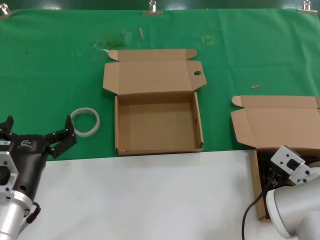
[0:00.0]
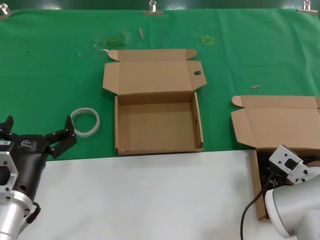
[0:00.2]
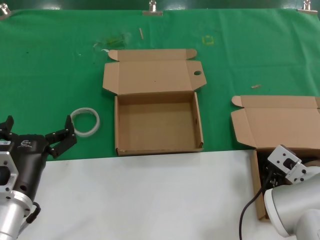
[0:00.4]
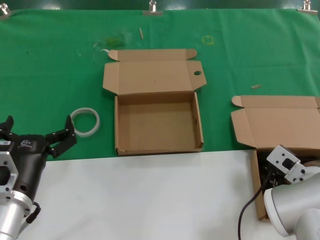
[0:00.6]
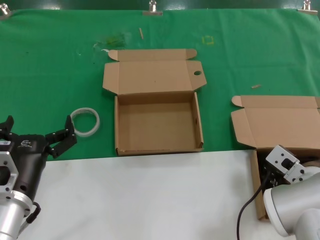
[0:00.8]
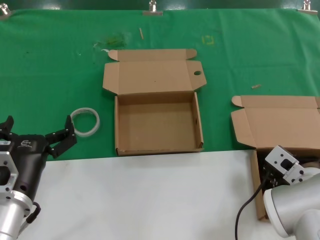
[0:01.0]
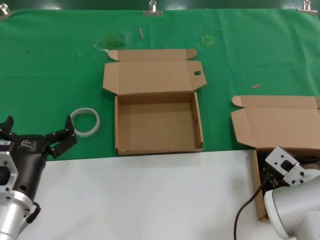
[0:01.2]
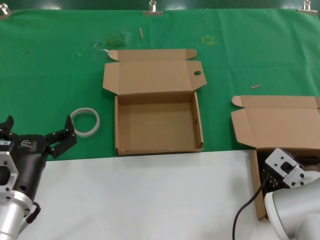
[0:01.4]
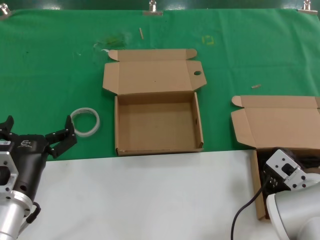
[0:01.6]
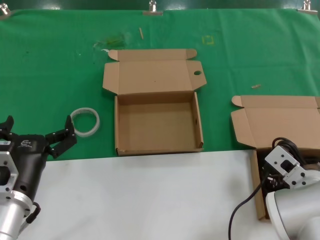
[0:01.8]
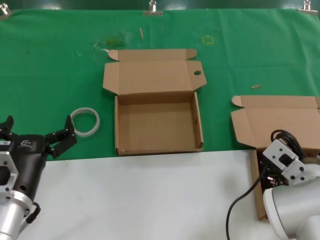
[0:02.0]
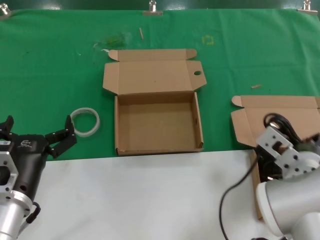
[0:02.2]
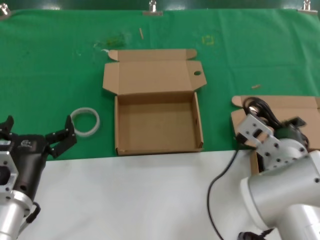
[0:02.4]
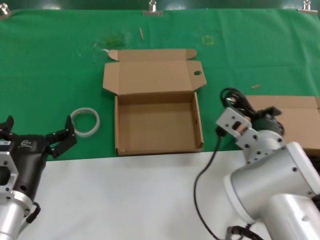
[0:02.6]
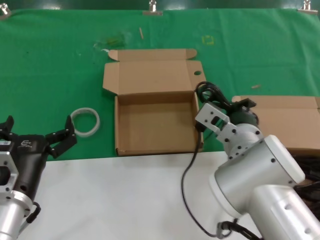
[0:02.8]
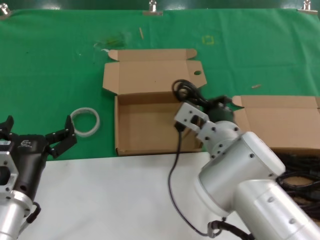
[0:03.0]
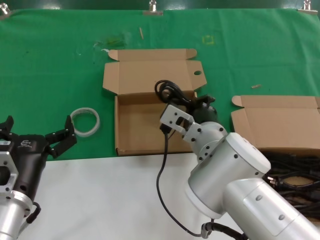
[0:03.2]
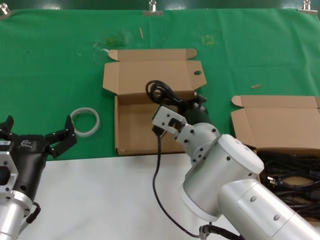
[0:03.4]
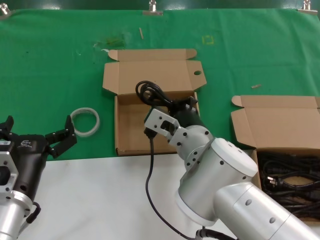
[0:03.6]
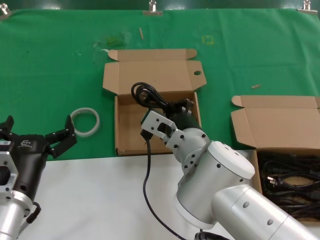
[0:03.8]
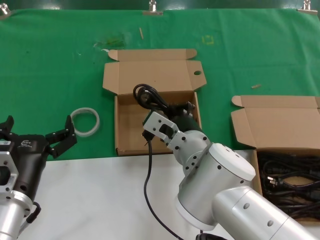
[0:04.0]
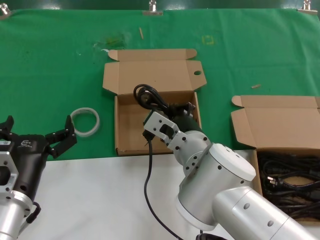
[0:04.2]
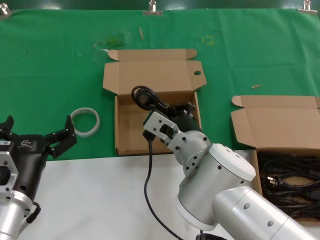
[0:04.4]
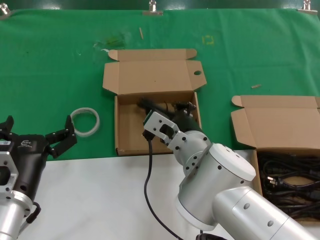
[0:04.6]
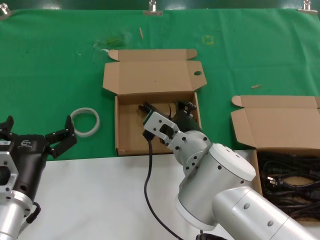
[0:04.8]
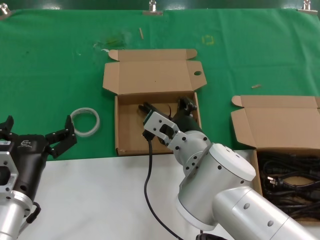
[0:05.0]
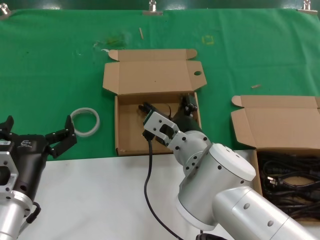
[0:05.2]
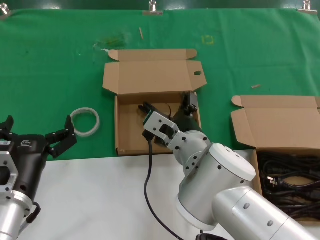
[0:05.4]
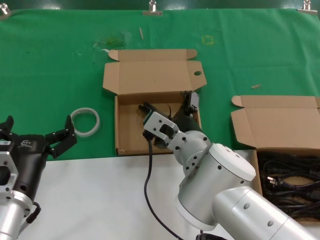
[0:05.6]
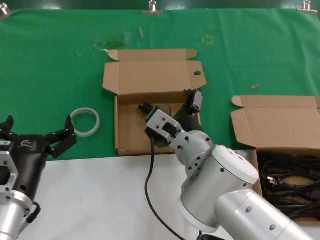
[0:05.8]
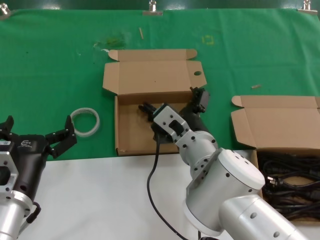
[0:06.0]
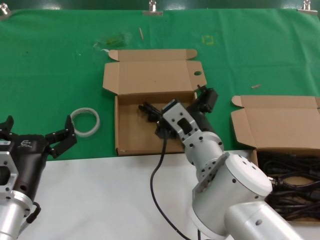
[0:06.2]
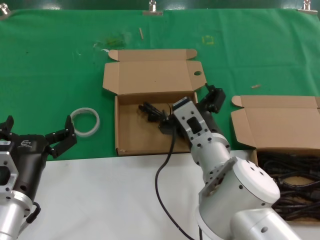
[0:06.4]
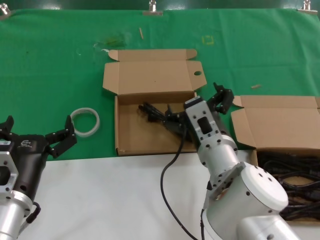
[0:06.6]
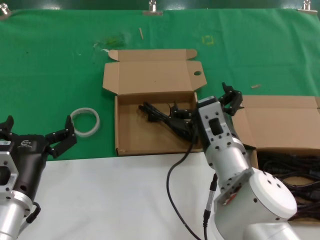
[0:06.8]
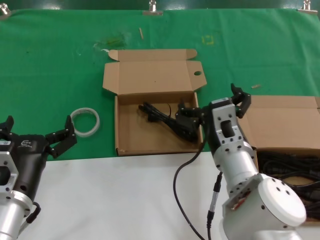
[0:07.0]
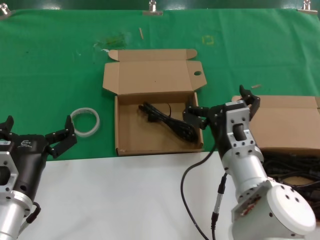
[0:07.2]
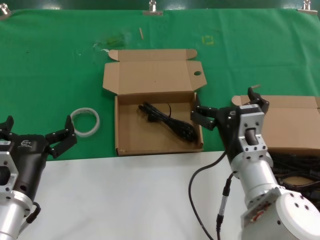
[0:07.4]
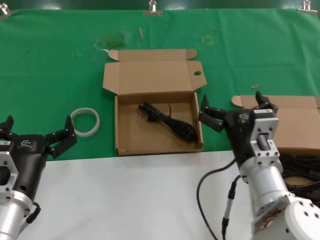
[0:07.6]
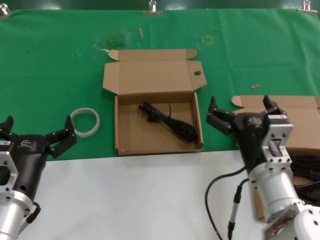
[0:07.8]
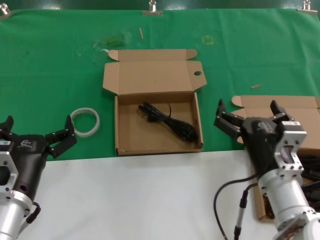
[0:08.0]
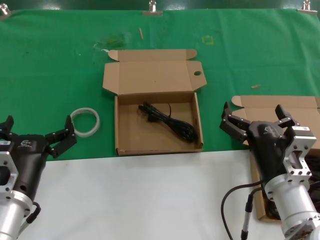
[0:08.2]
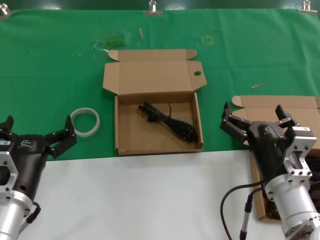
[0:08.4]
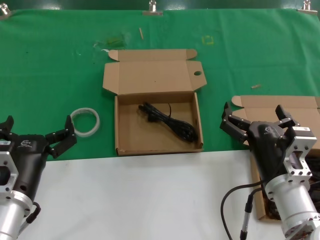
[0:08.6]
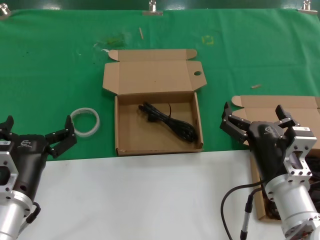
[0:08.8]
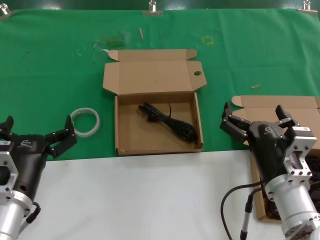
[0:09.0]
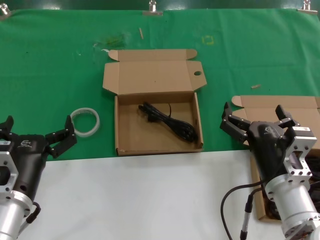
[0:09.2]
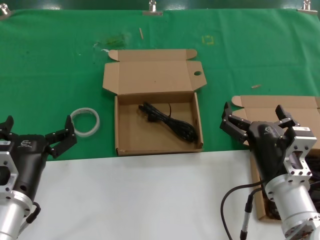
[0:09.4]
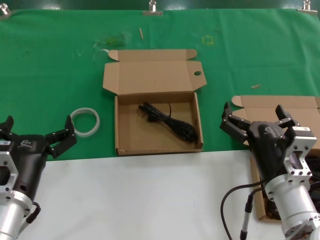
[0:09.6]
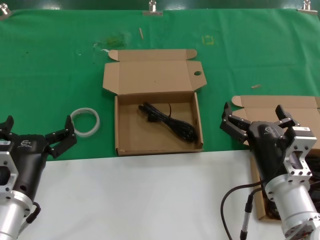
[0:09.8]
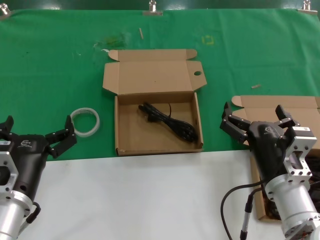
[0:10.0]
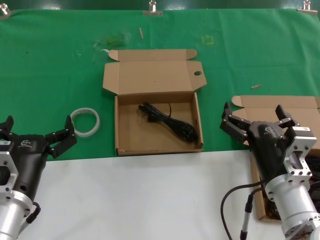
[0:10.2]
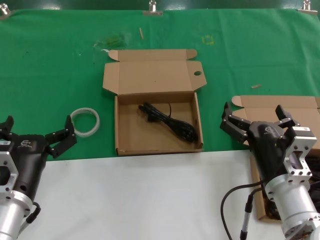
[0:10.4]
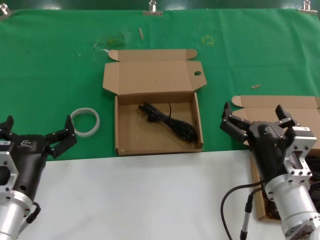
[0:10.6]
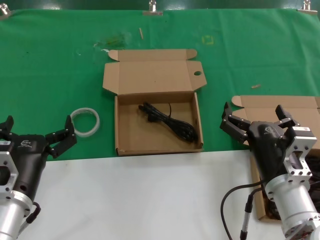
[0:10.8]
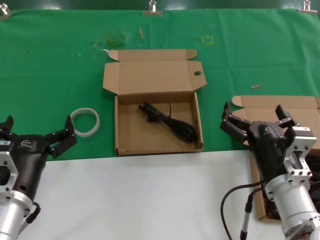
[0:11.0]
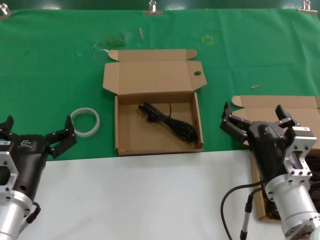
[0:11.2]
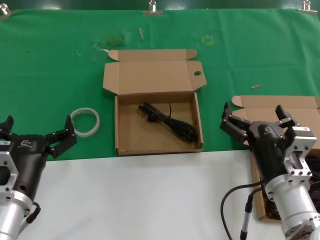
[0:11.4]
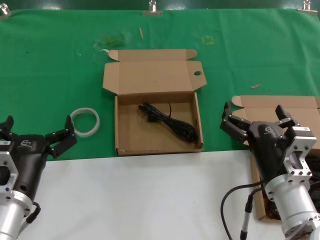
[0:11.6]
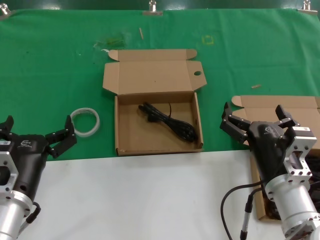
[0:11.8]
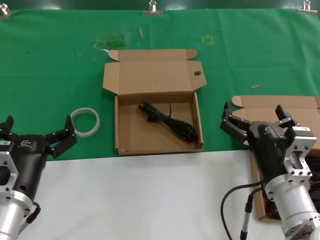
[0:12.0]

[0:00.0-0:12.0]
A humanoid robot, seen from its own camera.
Task of the whole recording: take the parts from the box containing them and put them into an empty box.
Step, 0:01.6 to 0:05.4: Place the data cable in the another box.
0:00.0 to 0:01.6: The hands make only small movements.
0:01.6 to 0:03.0: The right hand shifts approximately 15 cm to the left and forward.
0:03.0 to 0:04.4: The right hand changes place by approximately 5 cm.
0:04.4 to 0:06.0: There are only small adjustments of the hands.
0:06.0 to 0:07.6: The right hand goes roughly 10 cm to the right and backward.
0:07.6 to 0:09.0: The right hand changes place by approximately 5 cm.
0:09.0 to 0:12.0: Both hands stay about where they are.

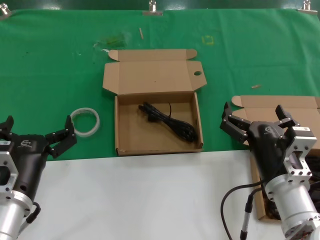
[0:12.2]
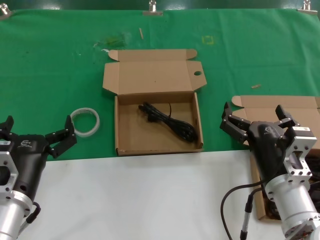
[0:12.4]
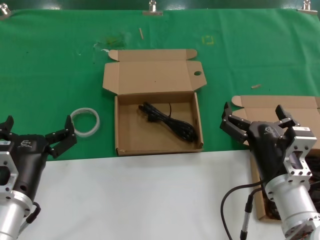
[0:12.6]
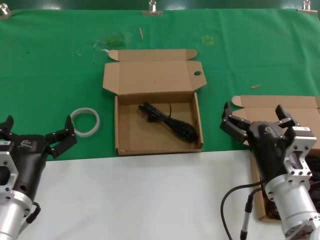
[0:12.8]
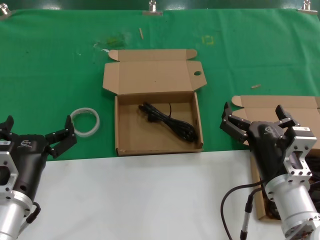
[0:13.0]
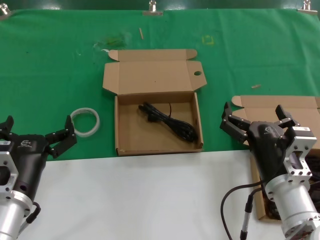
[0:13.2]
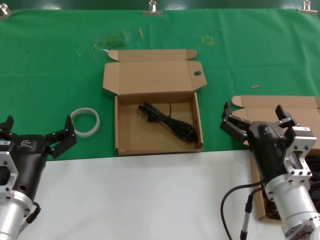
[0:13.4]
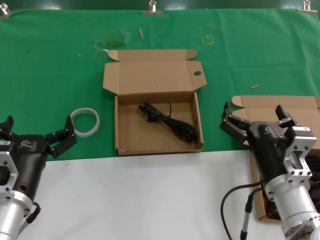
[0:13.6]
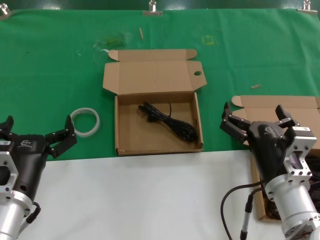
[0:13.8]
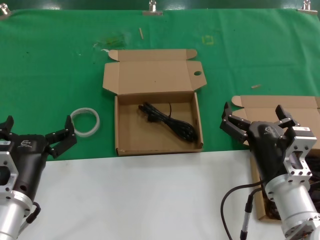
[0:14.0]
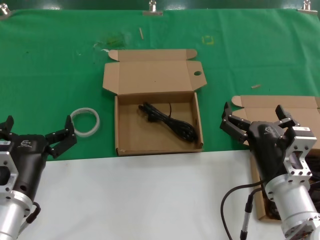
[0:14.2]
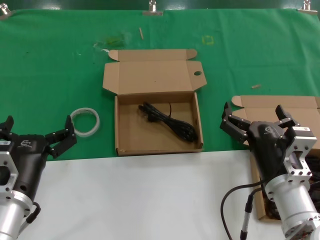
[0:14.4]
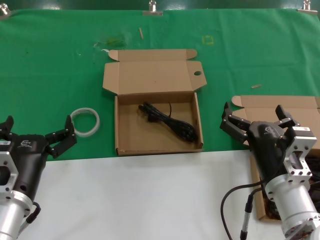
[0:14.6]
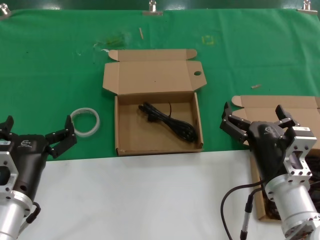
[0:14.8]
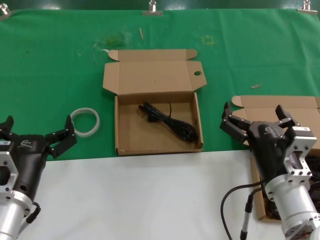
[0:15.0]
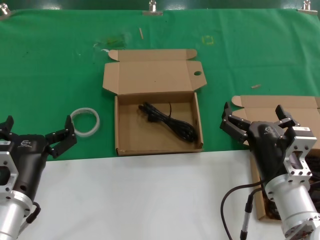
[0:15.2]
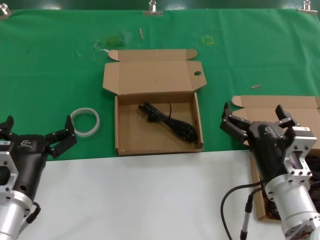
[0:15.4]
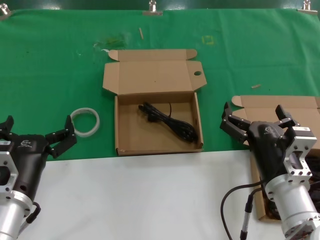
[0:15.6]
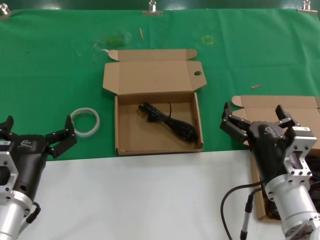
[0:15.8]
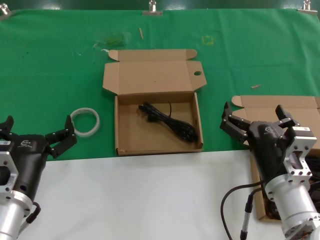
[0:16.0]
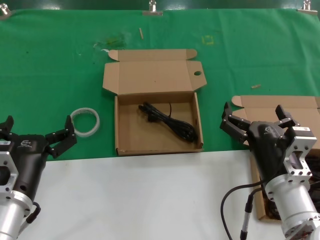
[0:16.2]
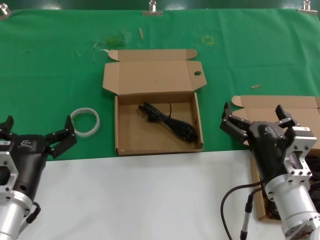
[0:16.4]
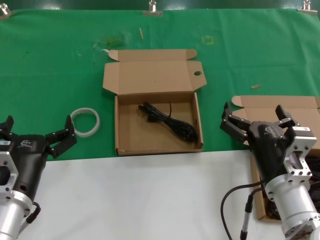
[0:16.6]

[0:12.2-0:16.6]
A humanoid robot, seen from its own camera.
Task of the whole recording: take the parts from the box containing them and put them into an empty box.
0:12.2 to 0:16.6: Both hands stay put.
